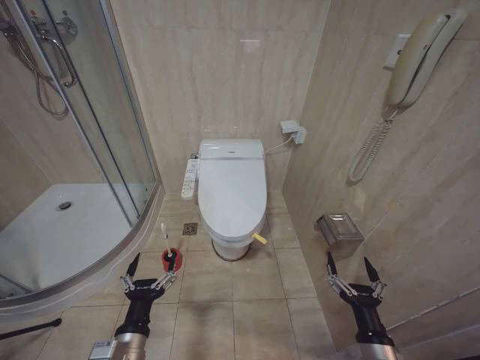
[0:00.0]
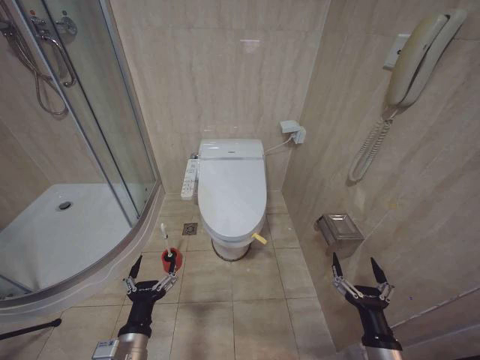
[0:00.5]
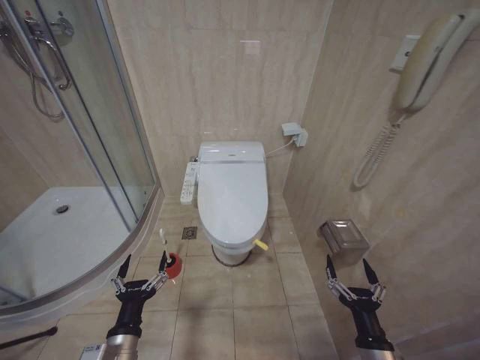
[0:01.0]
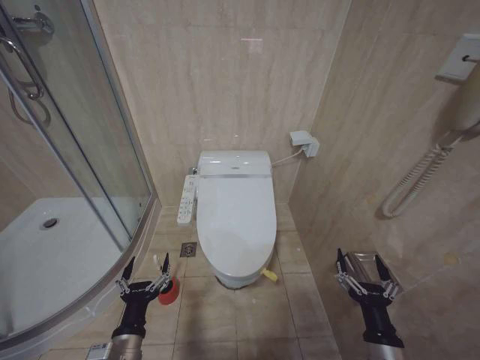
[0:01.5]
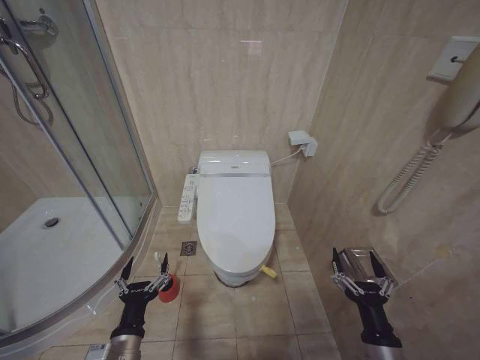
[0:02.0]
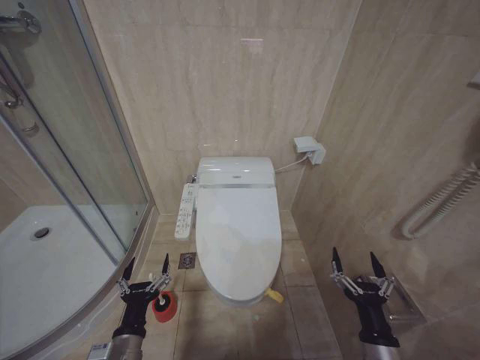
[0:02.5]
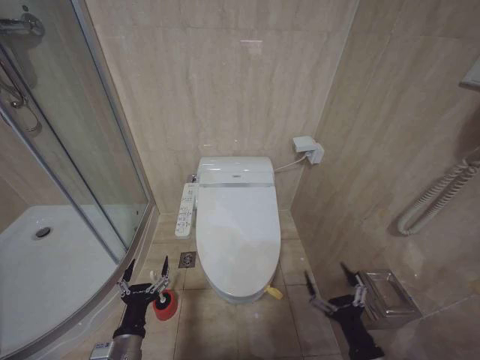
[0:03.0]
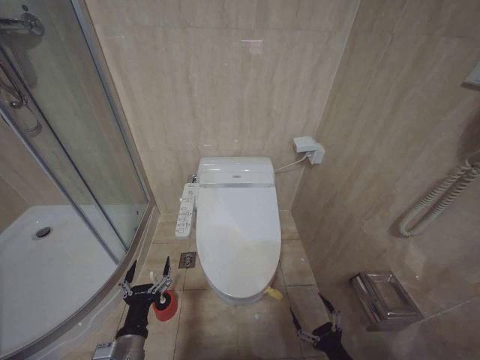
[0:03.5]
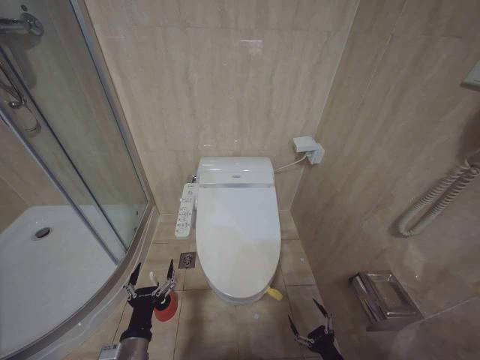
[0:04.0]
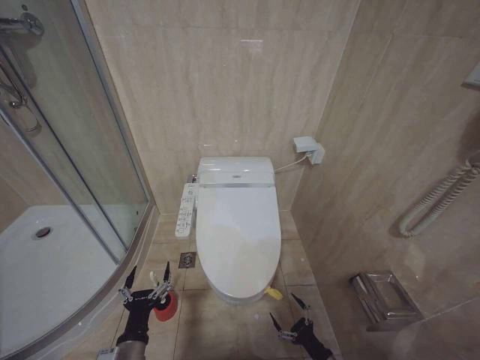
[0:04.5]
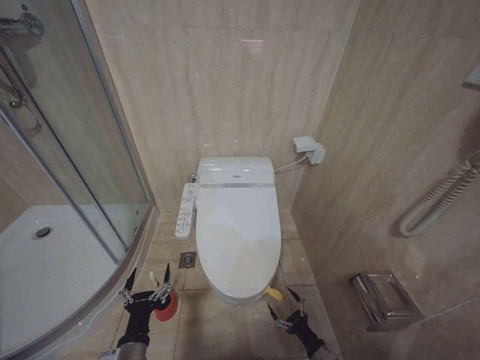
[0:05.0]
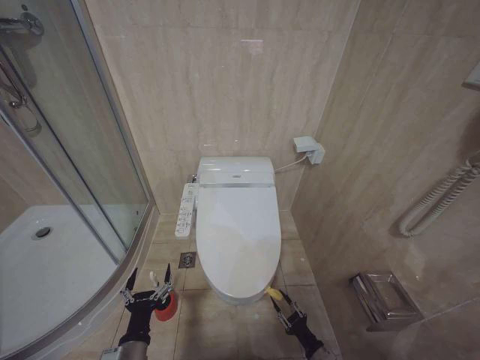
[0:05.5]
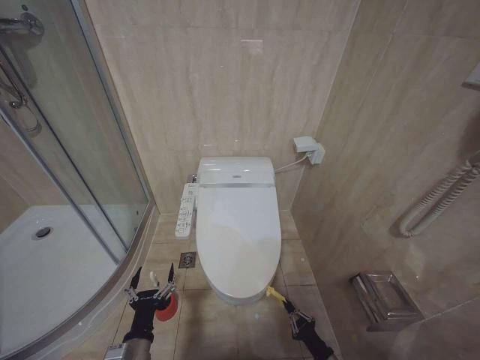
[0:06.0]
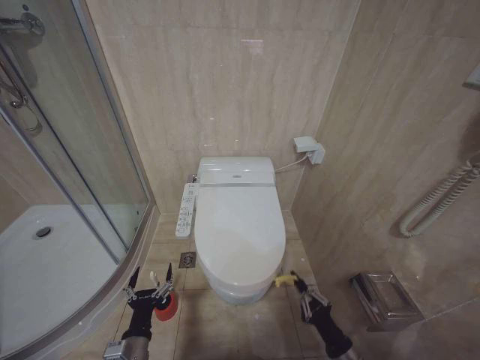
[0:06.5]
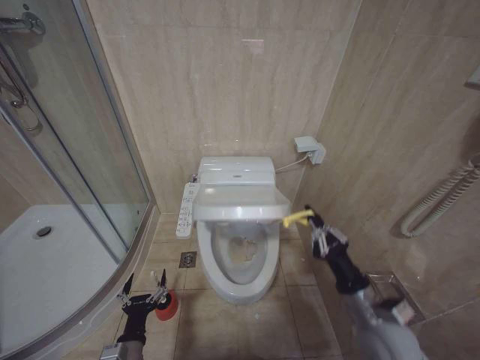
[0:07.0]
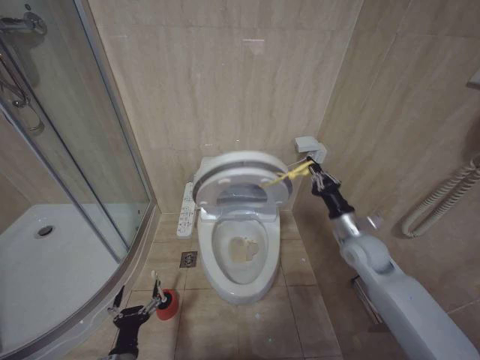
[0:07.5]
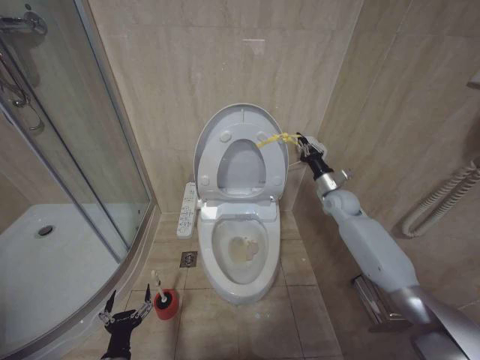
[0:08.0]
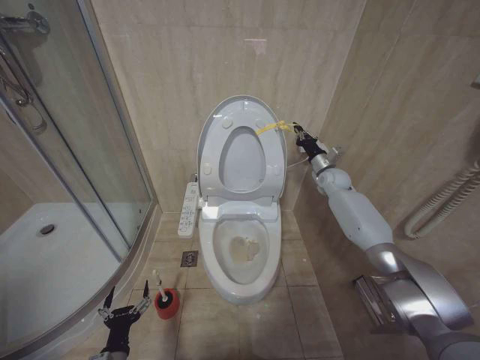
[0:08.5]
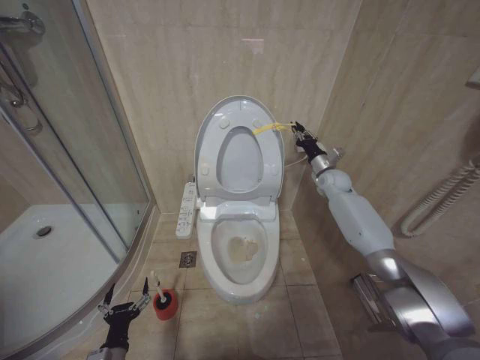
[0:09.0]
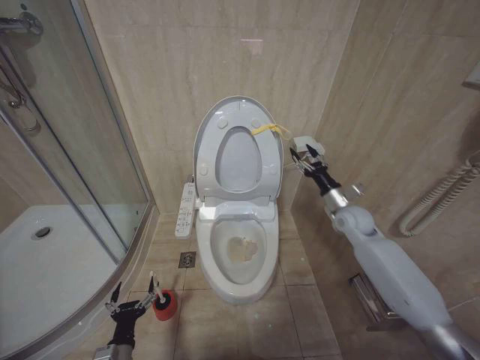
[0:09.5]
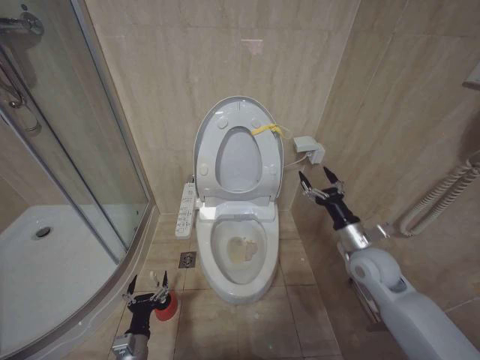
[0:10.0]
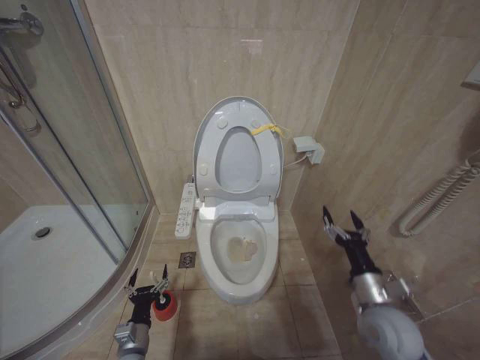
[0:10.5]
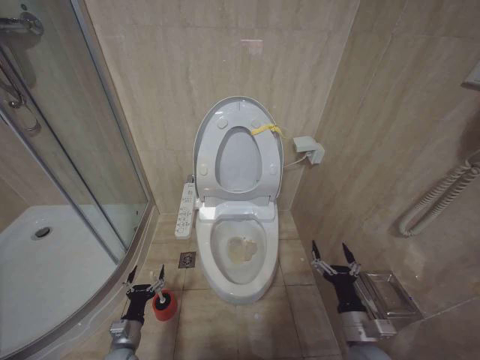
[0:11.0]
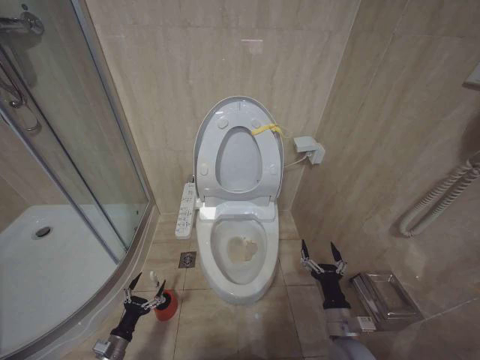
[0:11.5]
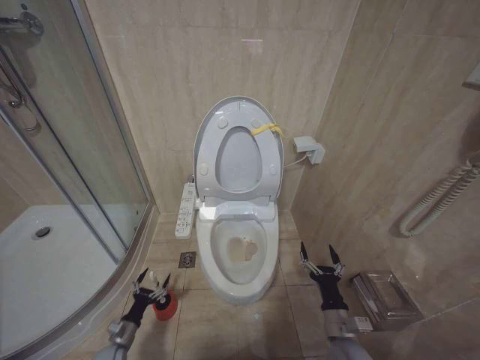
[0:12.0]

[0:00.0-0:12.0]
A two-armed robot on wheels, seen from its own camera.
Task of the whole recording: Open the toilet lid, clean the toilet bowl with a toilet brush, close the toilet lid, and flush.
0:02.0 to 0:04.0: The right gripper heads downward, covering approximately 15 cm.
0:04.0 to 0:06.0: The right gripper heads downward, covering some 5 cm, and closes.
0:06.0 to 0:08.0: The right gripper is displaced forward and upward by some 50 cm. Meanwhile the left gripper shifts roughly 5 cm to the left and downward.
0:08.0 to 0:10.0: The left gripper changes place by some 5 cm. The right gripper goes approximately 20 cm backward, and opens its fingers.
0:10.0 to 0:12.0: The left gripper shifts about 20 cm to the left, downward and forward. Meanwhile the right gripper is displaced downward and backward by approximately 25 cm.

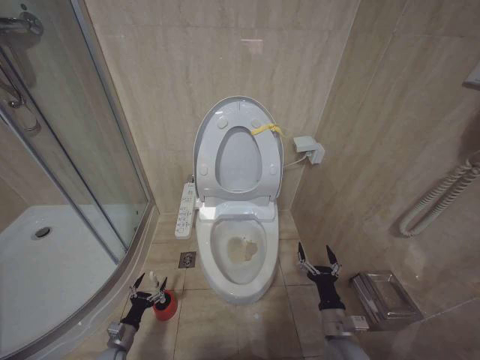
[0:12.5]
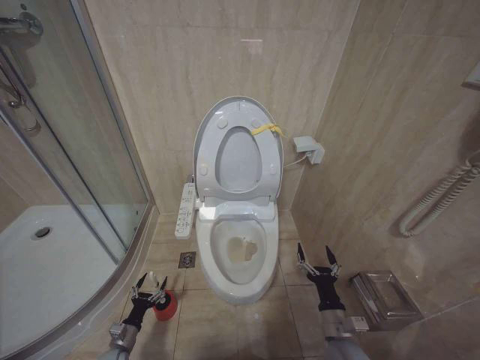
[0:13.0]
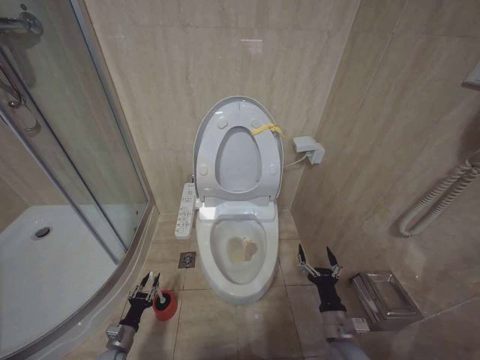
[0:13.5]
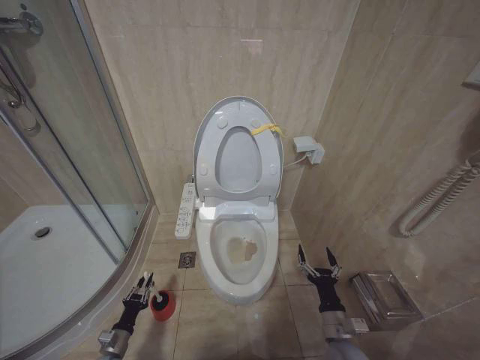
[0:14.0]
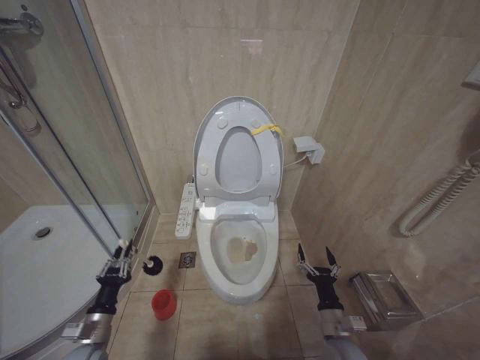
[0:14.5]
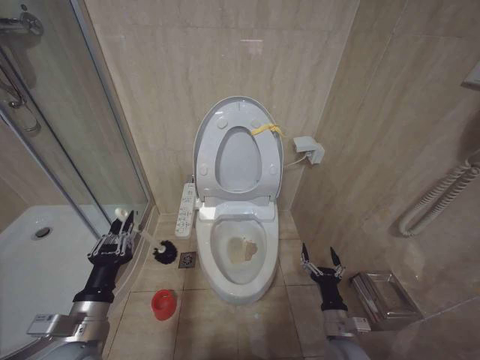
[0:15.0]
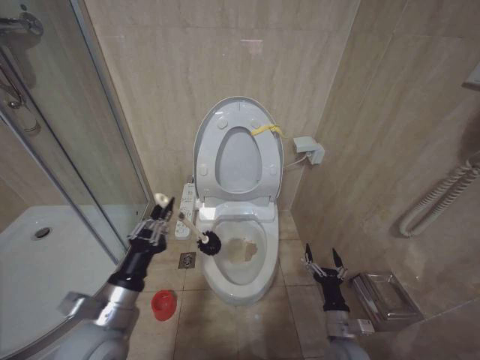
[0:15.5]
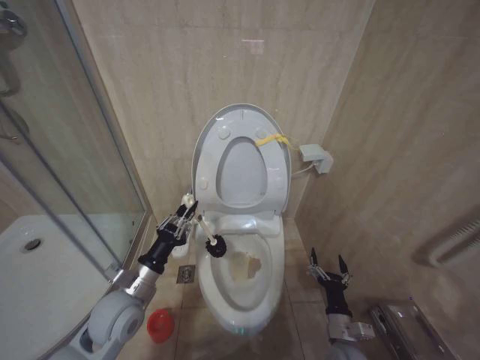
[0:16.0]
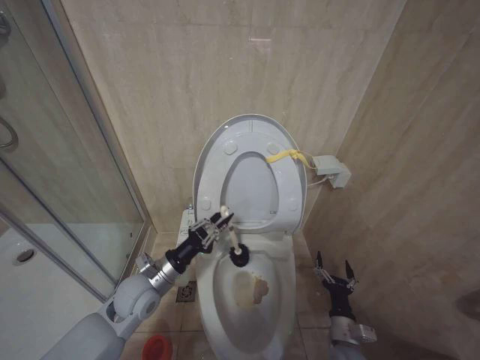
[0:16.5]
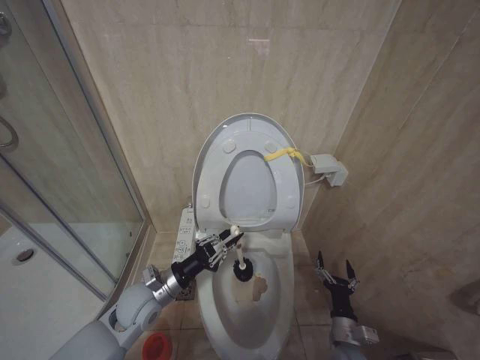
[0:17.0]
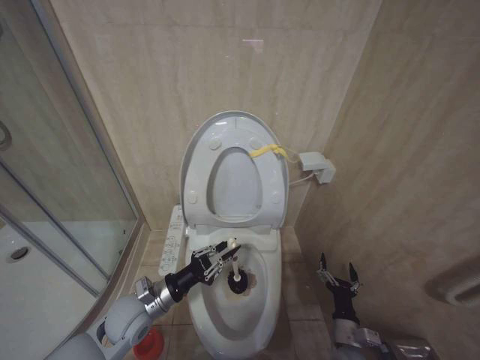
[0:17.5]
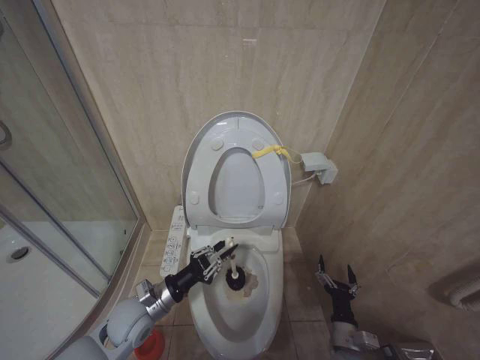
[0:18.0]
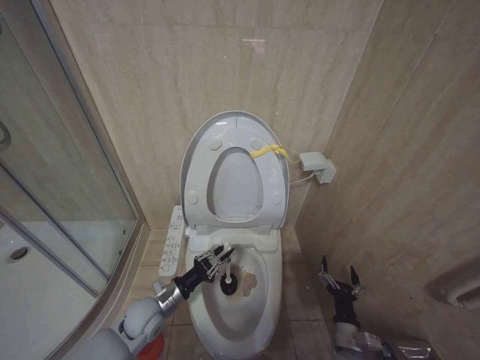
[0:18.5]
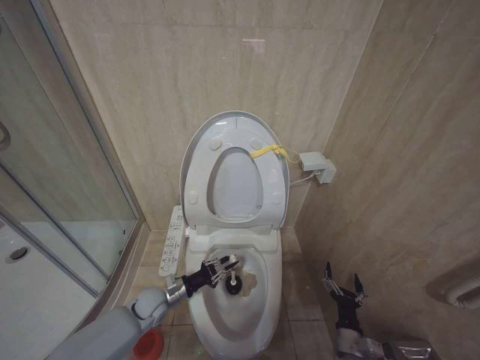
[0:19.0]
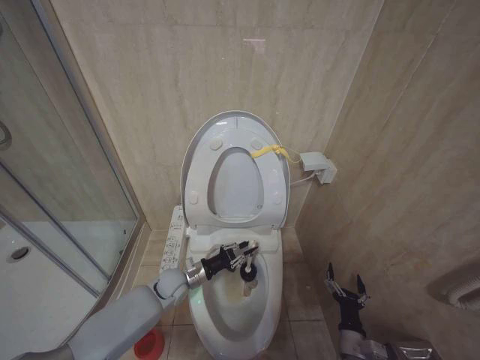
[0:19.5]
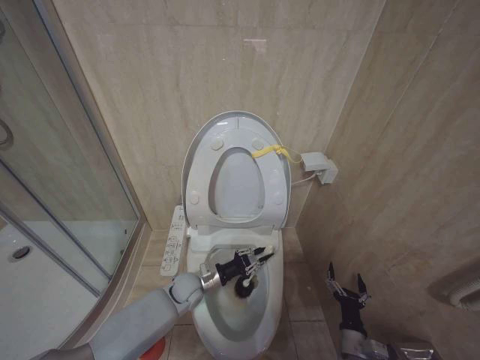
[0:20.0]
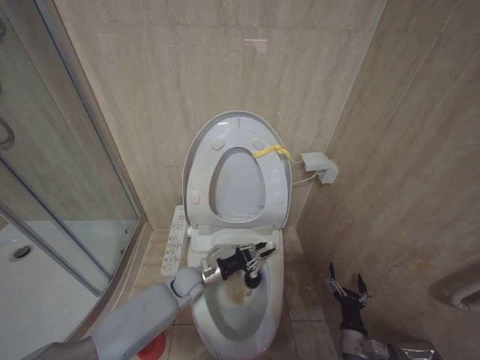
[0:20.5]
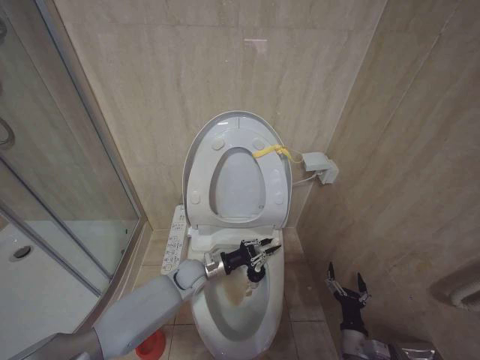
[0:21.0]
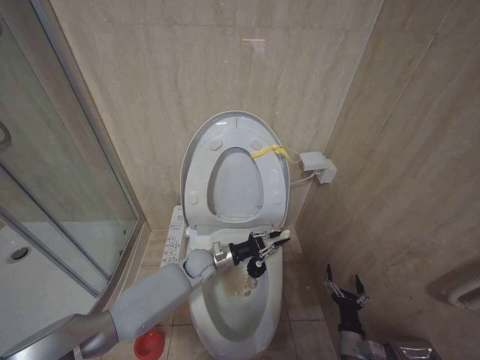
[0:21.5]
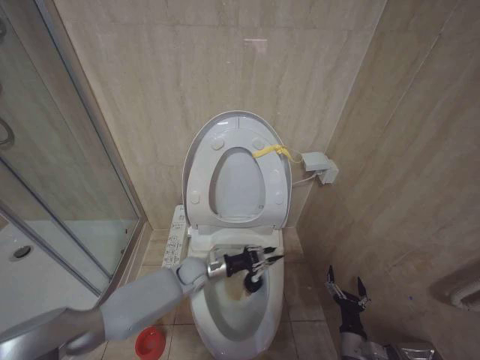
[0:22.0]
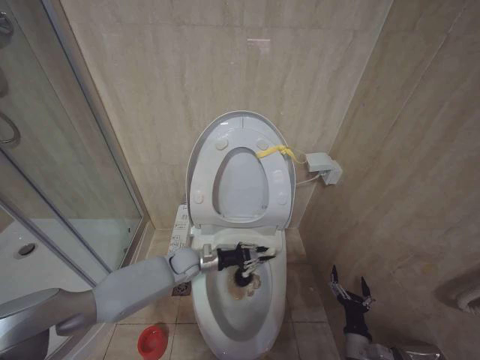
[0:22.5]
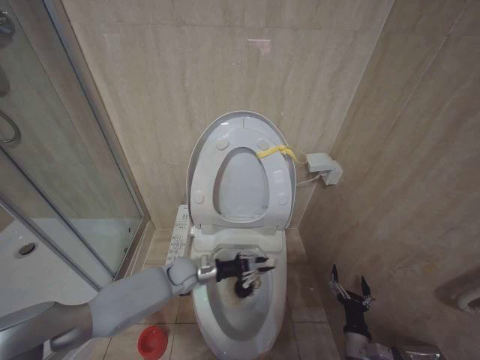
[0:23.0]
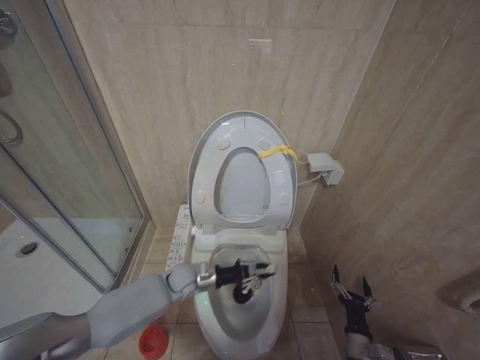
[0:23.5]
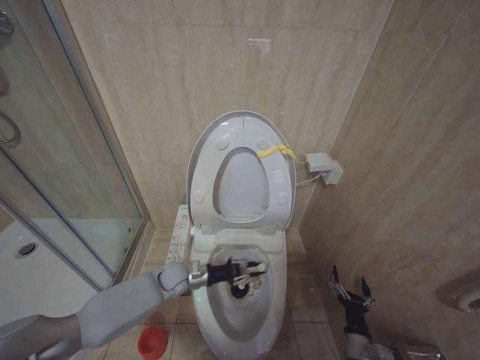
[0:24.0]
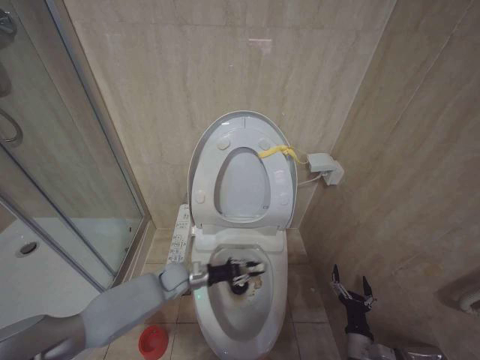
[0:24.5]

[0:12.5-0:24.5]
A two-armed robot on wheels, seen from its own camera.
Task of the whole recording: Open the toilet lid, clean the toilet bowl with a toilet brush, close the toilet lid, and flush.
0:12.5 to 0:14.5: The left gripper shifts approximately 15 cm upward, and closes up.
0:14.5 to 0:16.5: The left gripper goes approximately 20 cm upward, to the right and forward.
0:16.5 to 0:18.5: The left gripper moves downward, about 10 cm.
0:18.5 to 0:20.5: The left gripper shifts approximately 15 cm to the right and forward.
0:20.5 to 0:22.5: The left gripper moves some 5 cm.
0:22.5 to 0:24.5: The left gripper shifts by some 5 cm.

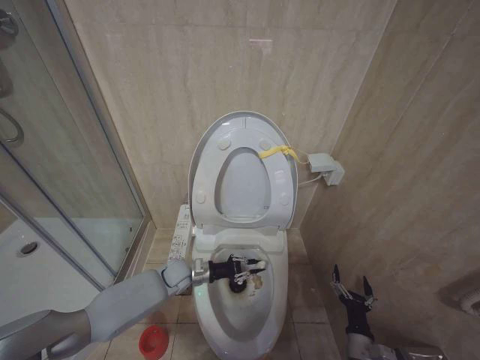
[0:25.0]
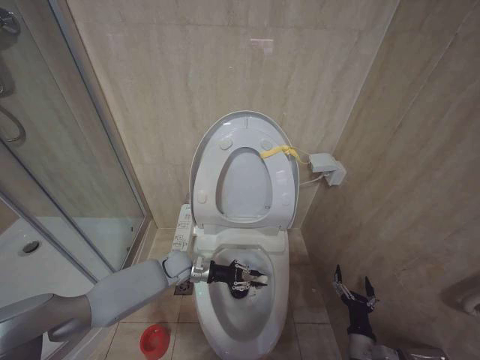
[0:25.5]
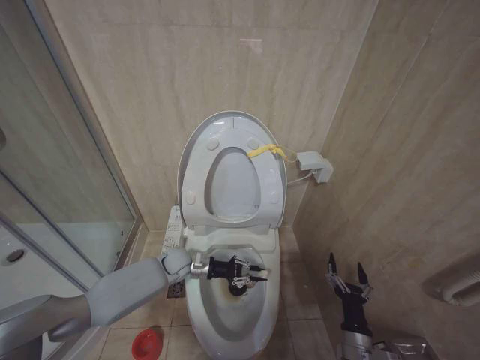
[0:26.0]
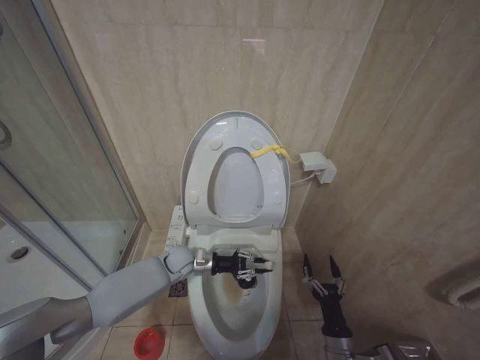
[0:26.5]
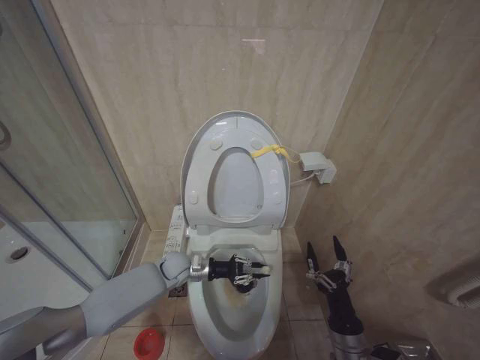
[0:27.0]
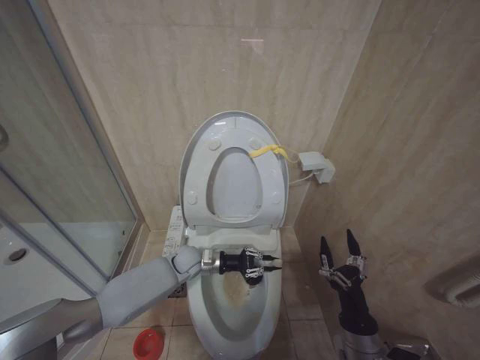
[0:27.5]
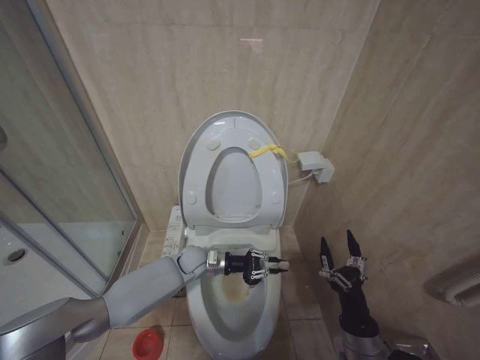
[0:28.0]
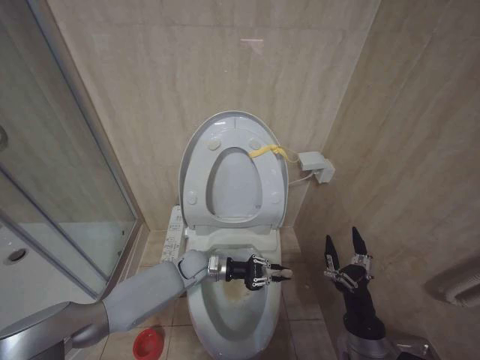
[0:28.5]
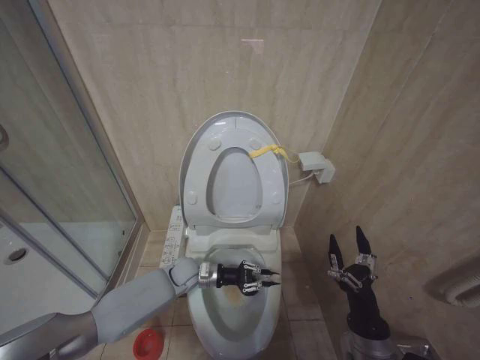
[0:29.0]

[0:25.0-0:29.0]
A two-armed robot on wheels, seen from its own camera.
Task of the whole recording: Open the toilet lid, clean the toilet bowl with a toilet brush, close the toilet lid, and flush.
0:25.0 to 0:27.0: The right gripper shifts some 15 cm upward and to the left.
0:27.0 to 0:29.0: The right gripper moves upward, approximately 5 cm.
